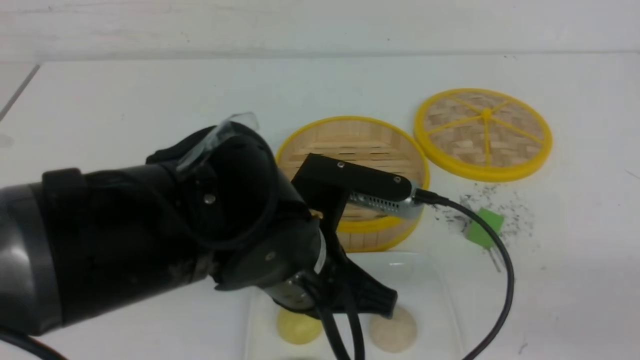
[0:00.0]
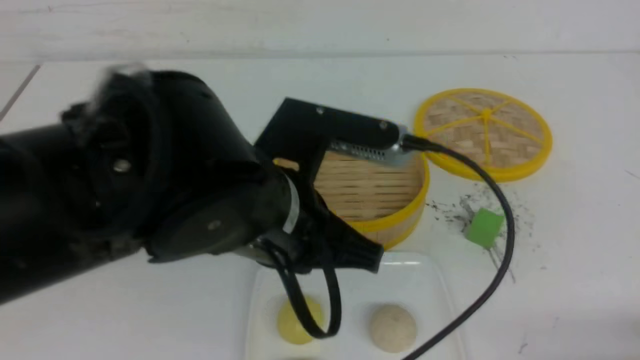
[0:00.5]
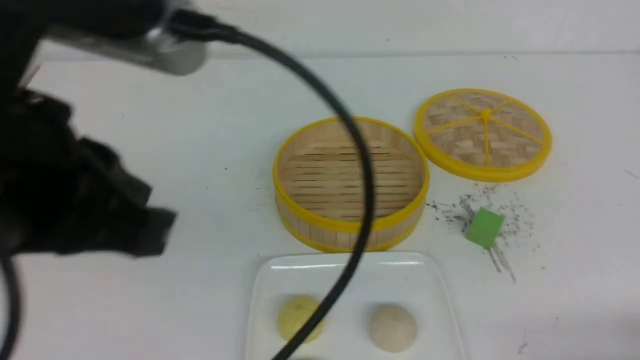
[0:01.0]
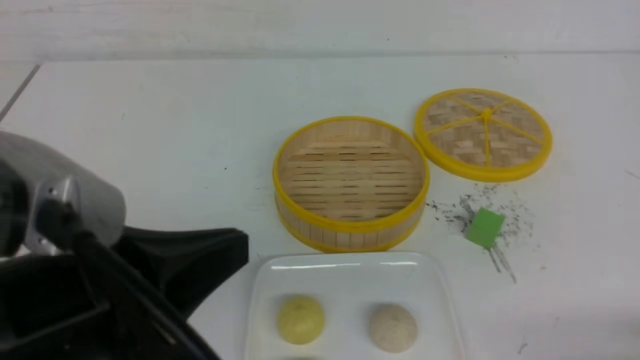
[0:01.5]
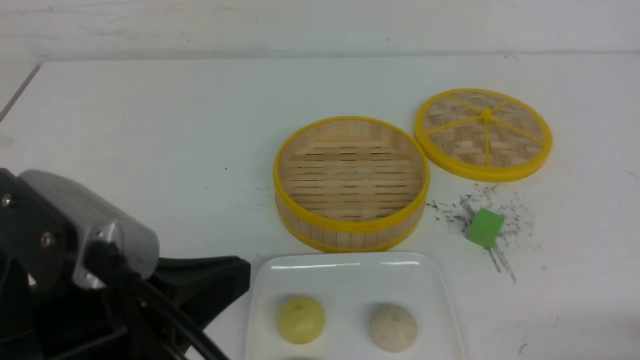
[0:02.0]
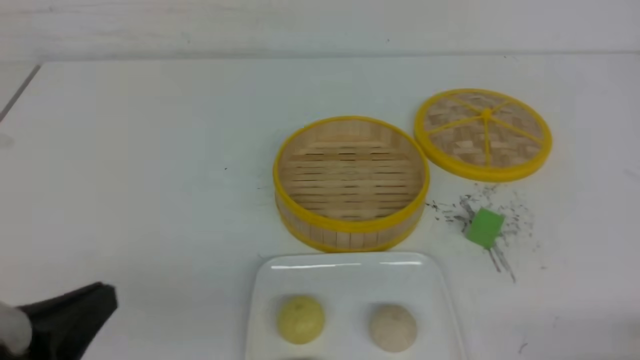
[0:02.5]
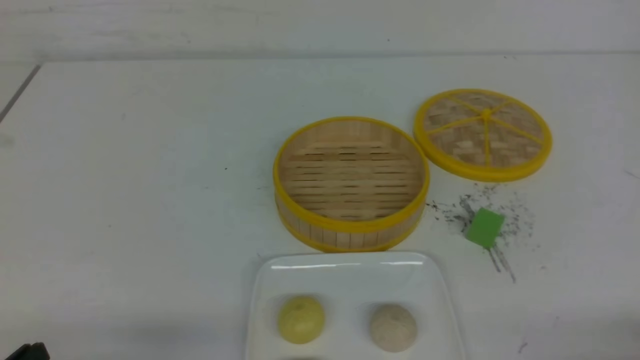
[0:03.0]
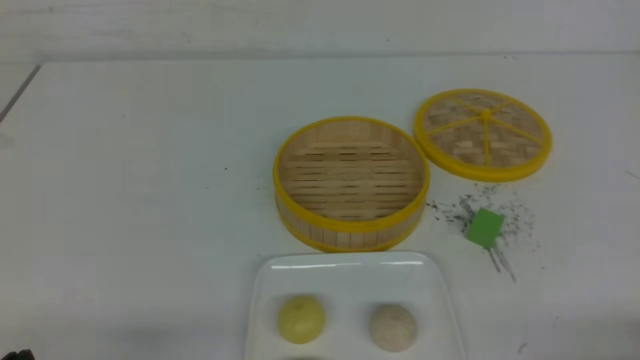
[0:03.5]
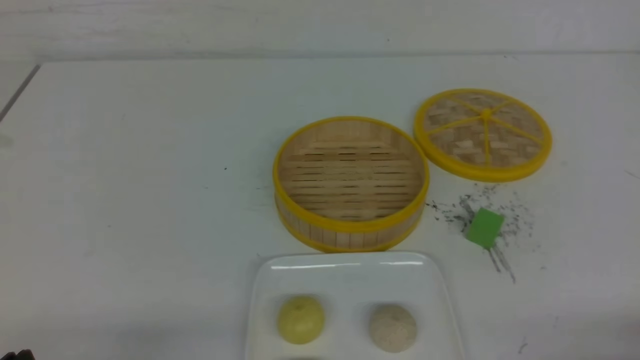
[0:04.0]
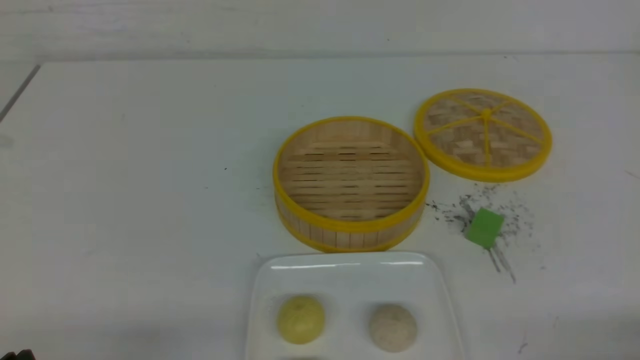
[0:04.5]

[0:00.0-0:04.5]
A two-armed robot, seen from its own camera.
0:00.0 to 0:02.0: The right gripper moves downward, some 5 cm, while the left gripper moves to the left and backward, about 15 cm.
0:02.0 to 0:04.5: The left gripper heads downward and to the left, covering approximately 20 cm.
